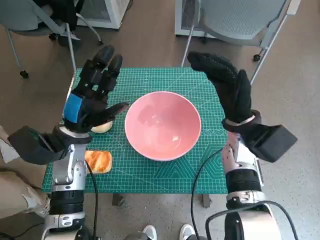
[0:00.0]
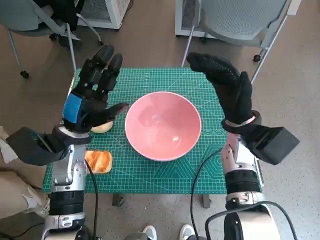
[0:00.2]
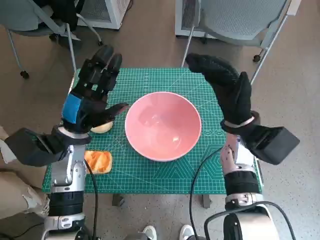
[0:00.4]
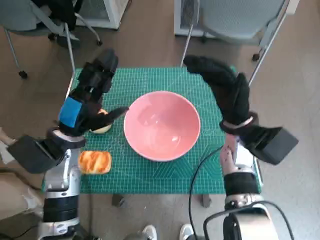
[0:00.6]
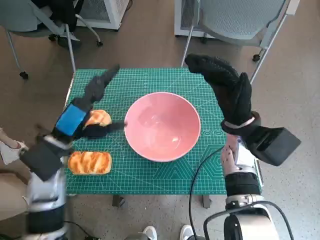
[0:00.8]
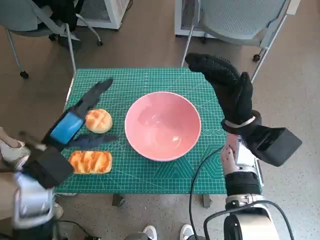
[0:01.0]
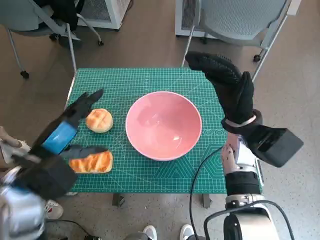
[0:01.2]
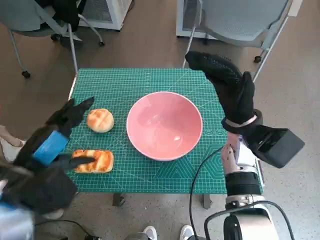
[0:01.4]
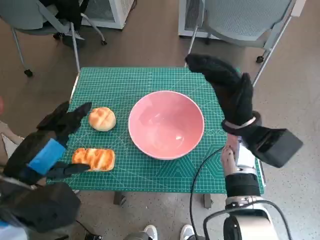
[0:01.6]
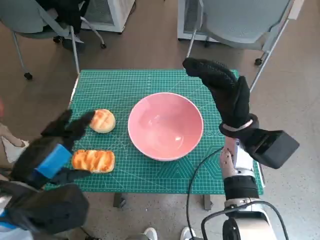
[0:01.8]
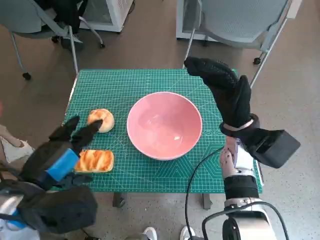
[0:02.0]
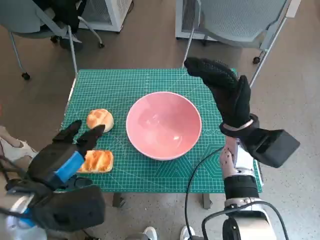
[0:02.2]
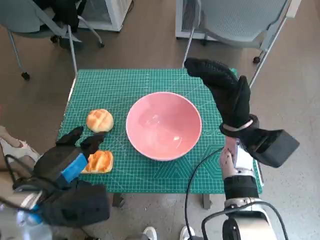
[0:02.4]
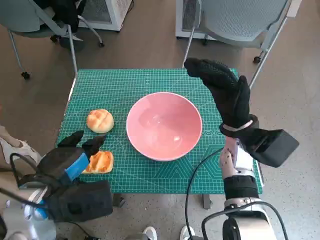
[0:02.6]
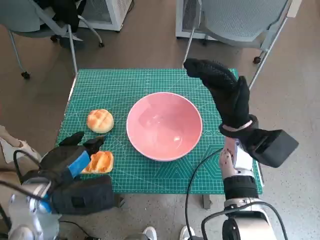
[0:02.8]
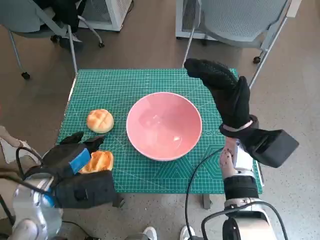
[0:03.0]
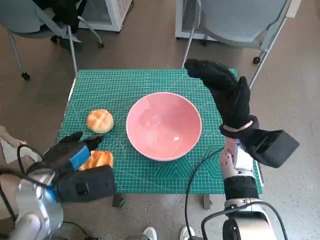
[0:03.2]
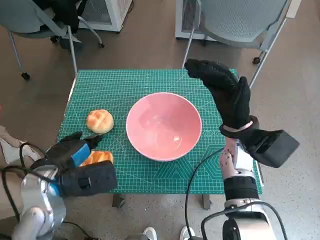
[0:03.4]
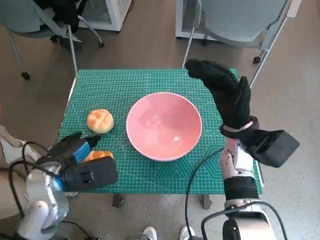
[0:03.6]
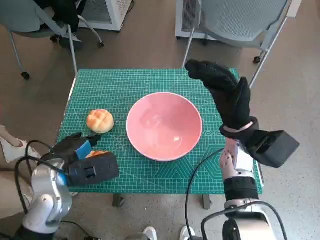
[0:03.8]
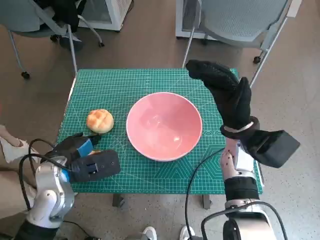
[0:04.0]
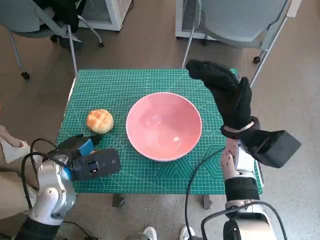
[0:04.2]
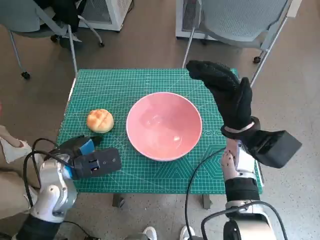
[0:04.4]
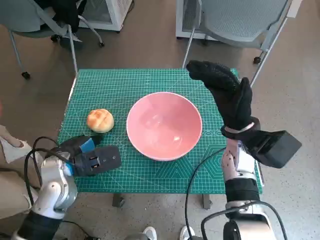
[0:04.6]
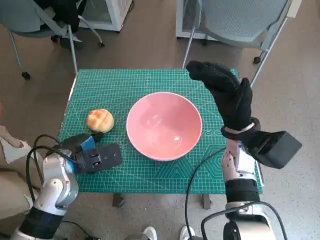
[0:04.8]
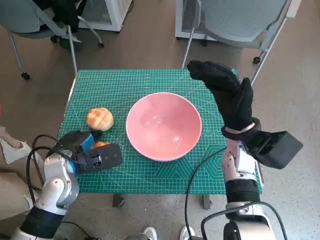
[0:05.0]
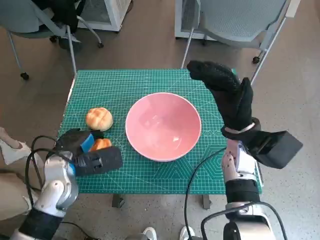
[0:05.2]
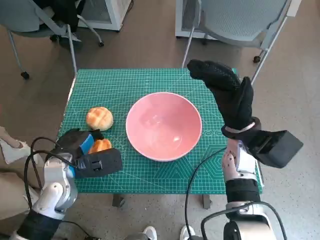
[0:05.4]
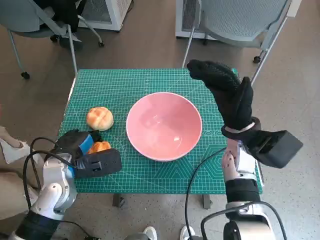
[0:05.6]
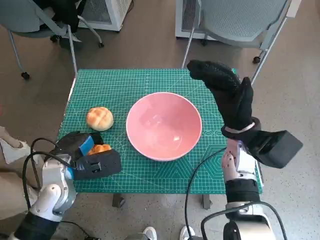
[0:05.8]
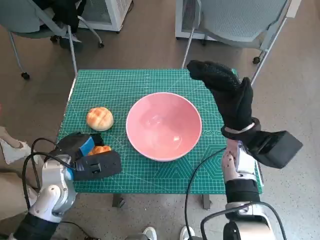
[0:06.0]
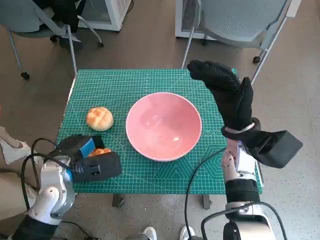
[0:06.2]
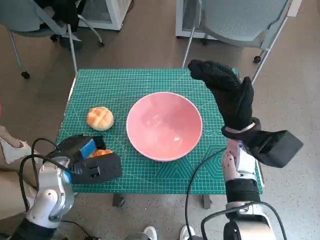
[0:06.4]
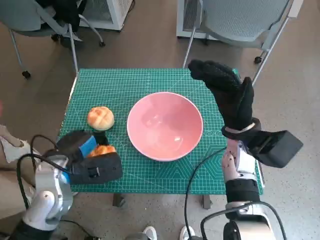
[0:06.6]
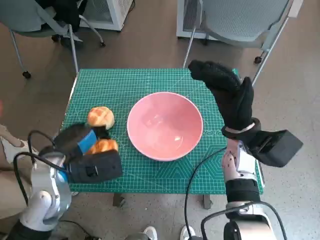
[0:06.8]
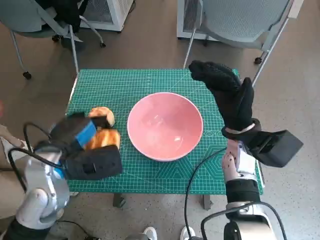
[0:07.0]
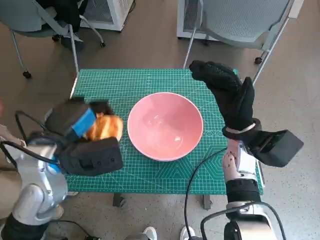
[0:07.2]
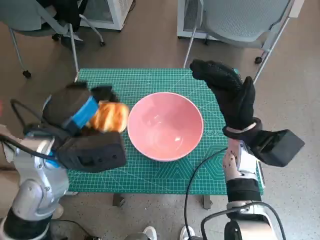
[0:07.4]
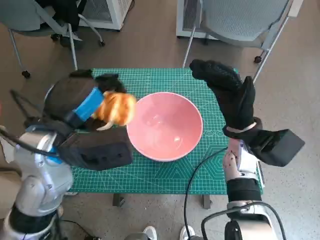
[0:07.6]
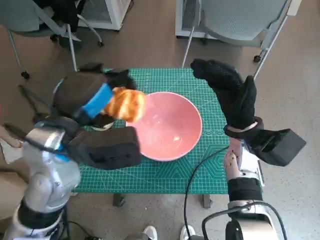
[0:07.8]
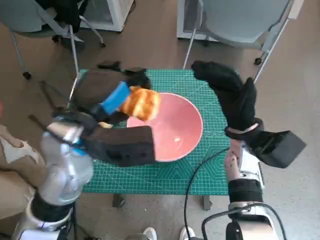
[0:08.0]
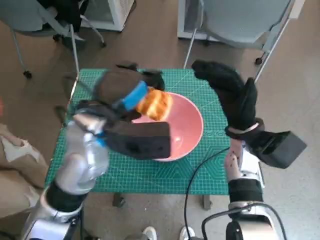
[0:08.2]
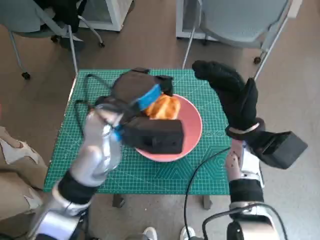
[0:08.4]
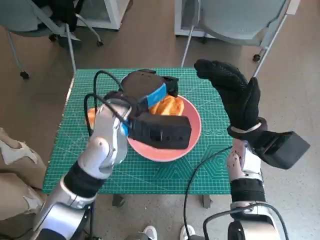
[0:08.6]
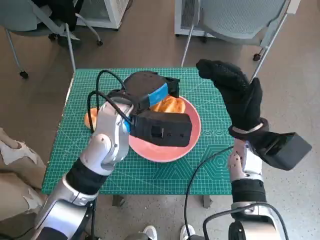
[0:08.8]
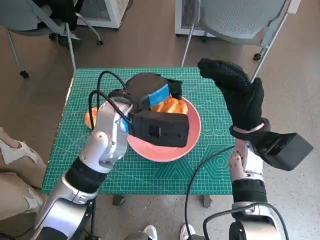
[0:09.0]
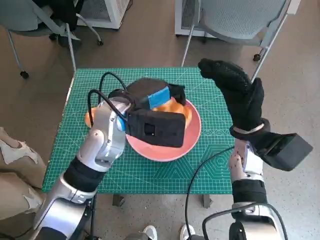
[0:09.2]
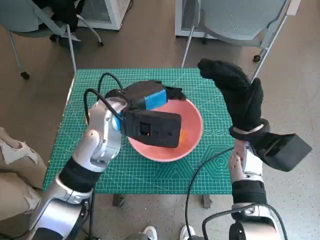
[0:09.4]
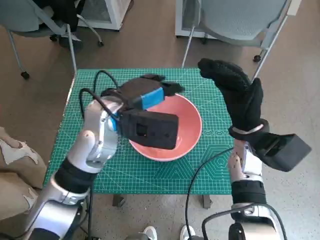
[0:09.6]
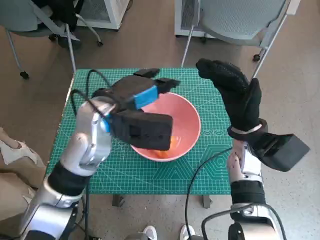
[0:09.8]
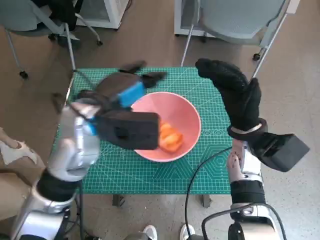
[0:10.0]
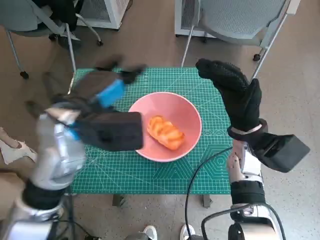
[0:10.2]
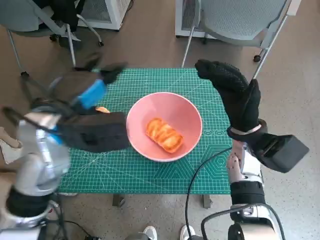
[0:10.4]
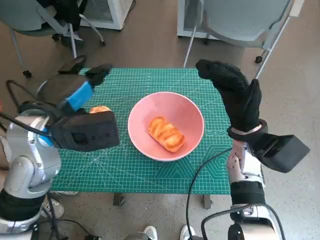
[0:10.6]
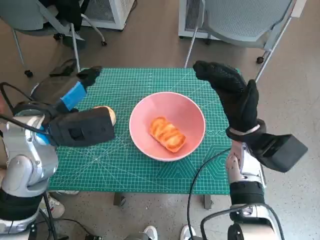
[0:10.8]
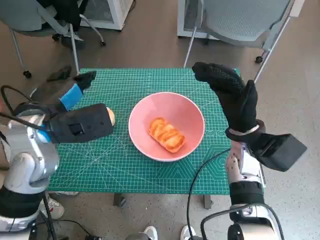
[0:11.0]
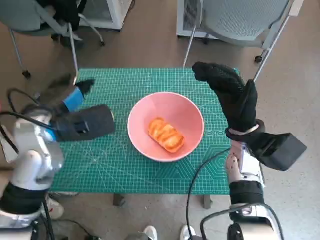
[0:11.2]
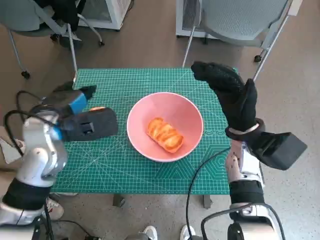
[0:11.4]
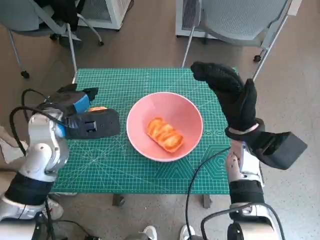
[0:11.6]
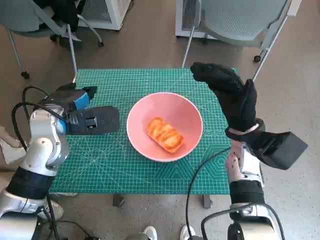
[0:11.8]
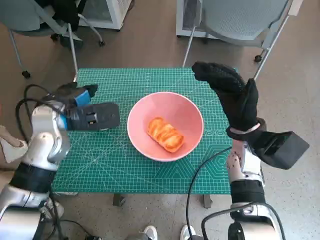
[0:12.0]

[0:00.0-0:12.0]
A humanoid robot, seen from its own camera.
Step, 0:00.0 to 0:04.6: Grasp the long bread with left hand.
Step, 0:04.8 to 0:09.4: Place the long bread in pink bowl with left hand.
0:00.0 to 0:01.6: The left hand travels backward and upward by approximately 15 cm.
0:01.6 to 0:03.0: The left hand shifts by roughly 5 cm.
0:03.0 to 0:04.4: The left hand moves forward, approximately 5 cm.
0:04.4 to 0:06.0: The hands stay close to where they were, moving slightly.
0:06.0 to 0:07.6: The left hand is displaced upward by some 15 cm.
0:07.6 to 0:09.0: The left hand moves to the right and forward, roughly 10 cm.
0:09.0 to 0:10.4: The left hand shifts some 10 cm to the left.
0:10.4 to 0:12.0: The left hand is displaced downward and forward by roughly 5 cm.

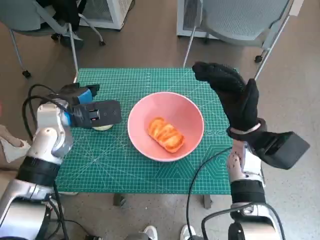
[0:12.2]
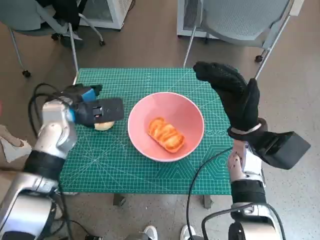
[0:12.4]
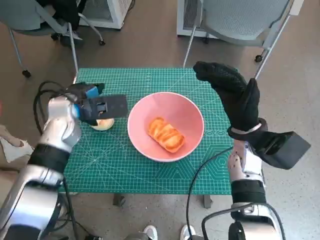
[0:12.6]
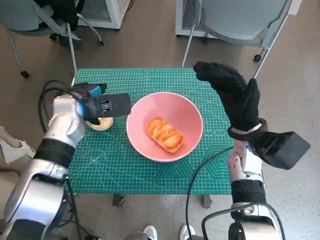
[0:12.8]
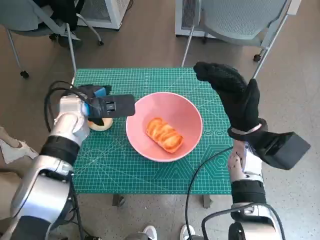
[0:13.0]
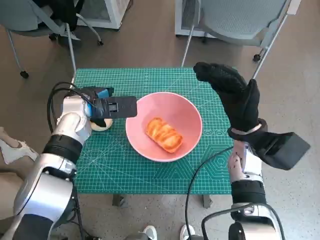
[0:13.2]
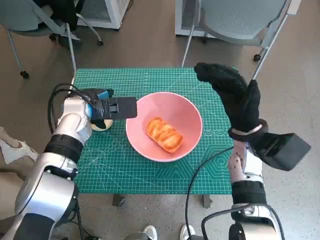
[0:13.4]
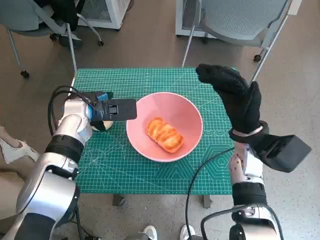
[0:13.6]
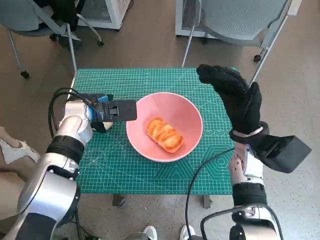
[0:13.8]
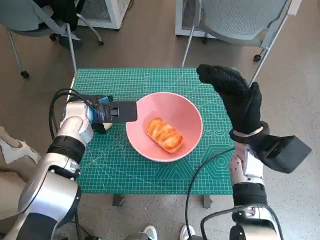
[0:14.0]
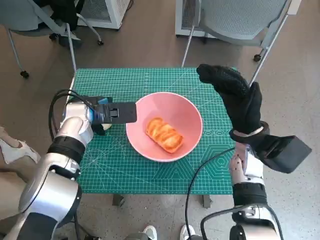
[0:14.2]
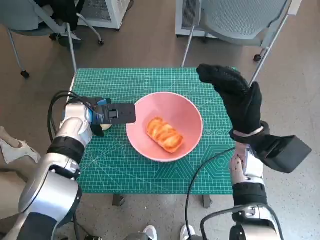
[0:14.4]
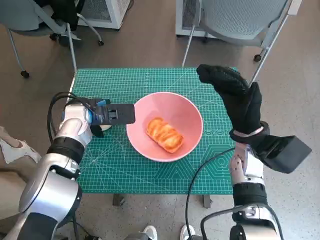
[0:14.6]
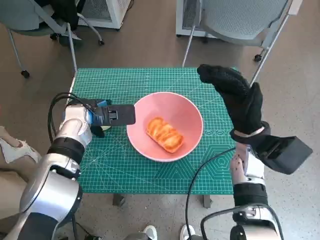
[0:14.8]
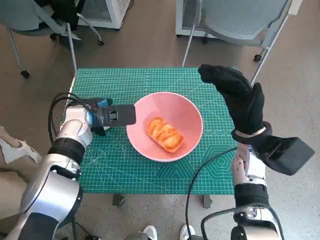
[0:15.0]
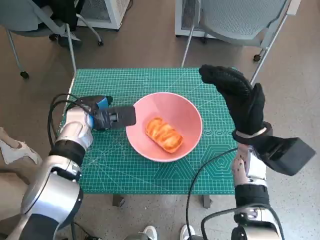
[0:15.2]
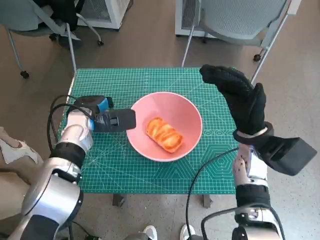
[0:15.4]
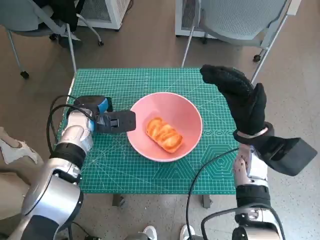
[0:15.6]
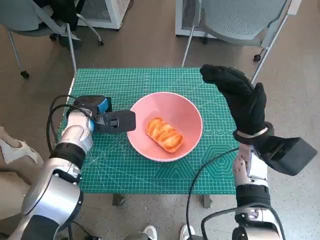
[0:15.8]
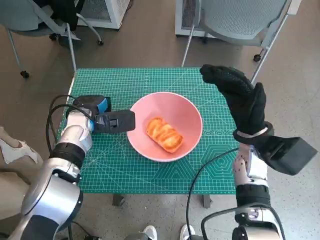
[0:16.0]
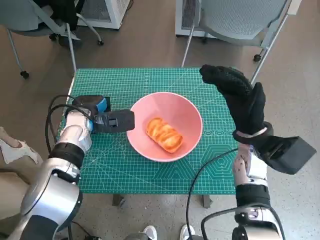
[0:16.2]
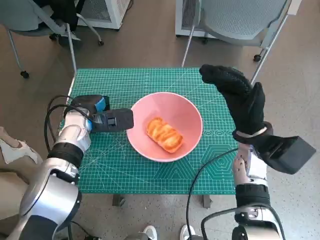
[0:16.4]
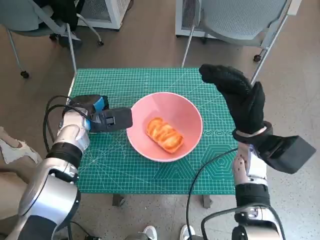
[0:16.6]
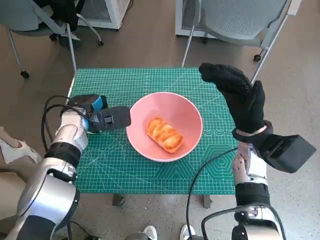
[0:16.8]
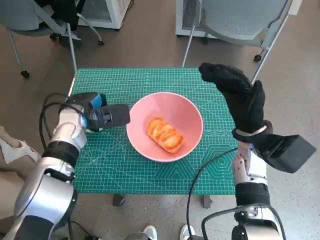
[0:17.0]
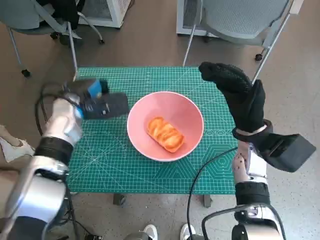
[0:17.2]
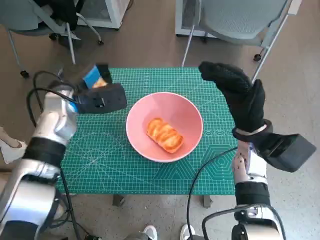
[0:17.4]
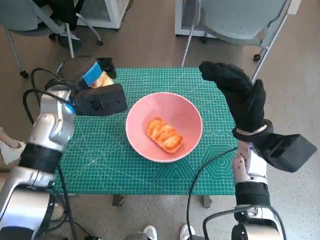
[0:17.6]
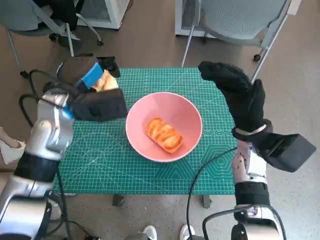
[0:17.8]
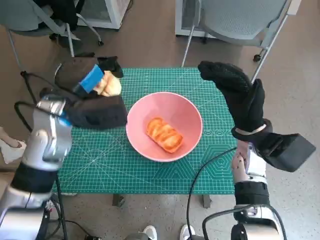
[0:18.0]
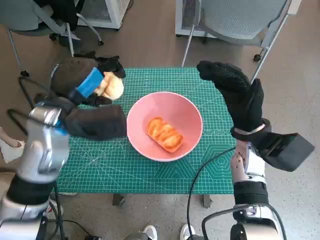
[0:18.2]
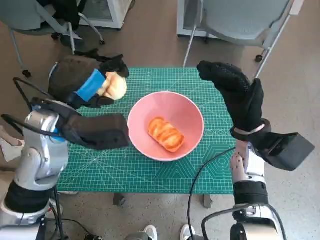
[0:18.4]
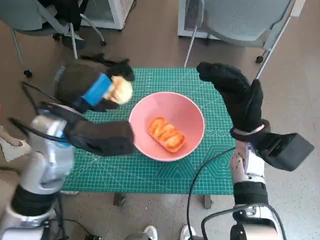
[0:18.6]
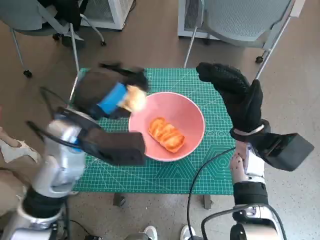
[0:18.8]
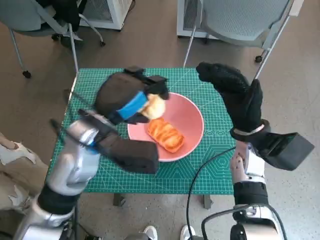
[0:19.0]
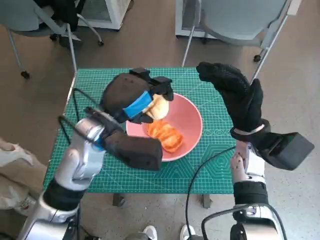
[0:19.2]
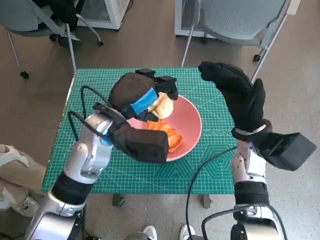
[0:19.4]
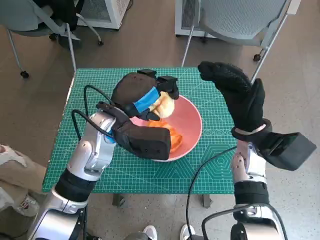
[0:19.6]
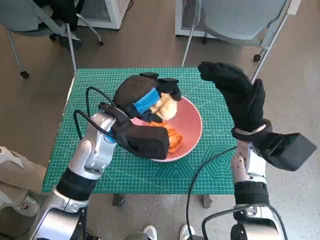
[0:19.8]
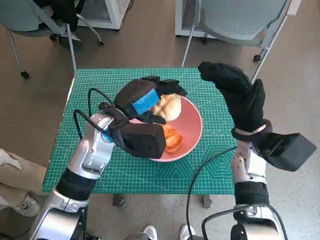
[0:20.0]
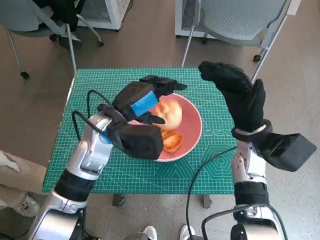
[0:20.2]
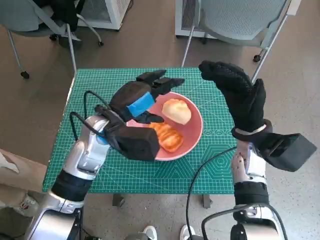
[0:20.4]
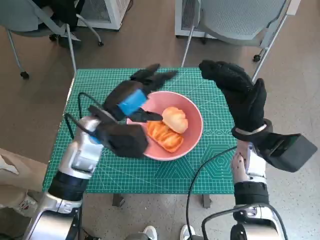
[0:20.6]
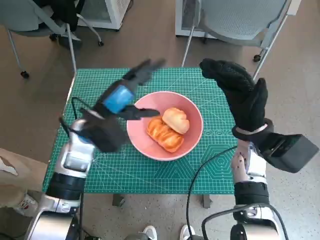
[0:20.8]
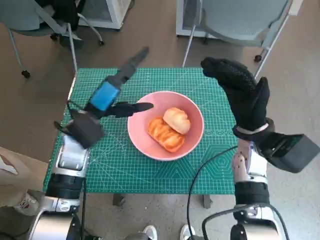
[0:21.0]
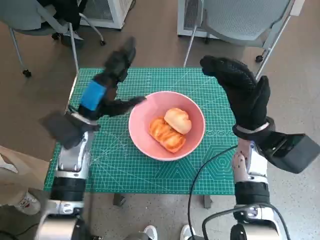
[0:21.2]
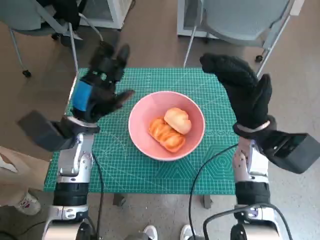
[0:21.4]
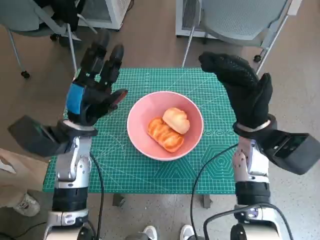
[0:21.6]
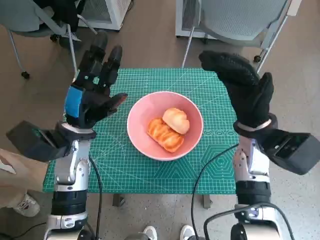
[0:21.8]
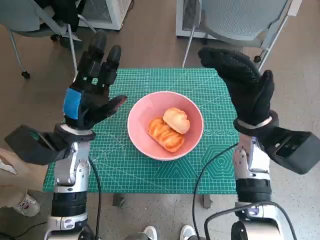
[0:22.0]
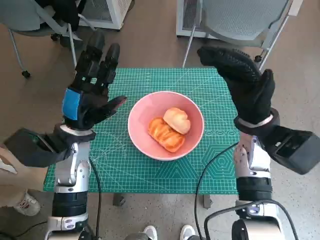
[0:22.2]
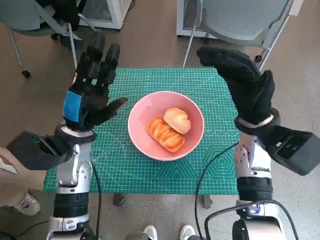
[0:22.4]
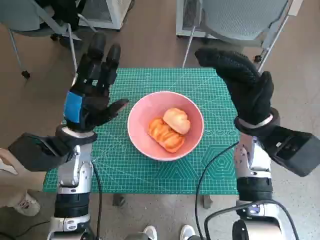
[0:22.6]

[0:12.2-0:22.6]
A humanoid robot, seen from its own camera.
Step, 0:12.2 to 0:15.6: Grasp the round bread with left hand.
Step, 0:15.8 to 0:20.4: Place the round bread in pink bowl with left hand.
0:12.2 to 0:13.6: The left hand changes place by approximately 5 cm.
0:13.6 to 0:16.6: The hands move only a little.
0:16.6 to 0:18.2: The left hand moves upward and backward, approximately 15 cm.
0:18.2 to 0:19.6: The left hand shifts roughly 5 cm to the right.
0:19.6 to 0:21.2: The left hand goes approximately 5 cm to the left.
